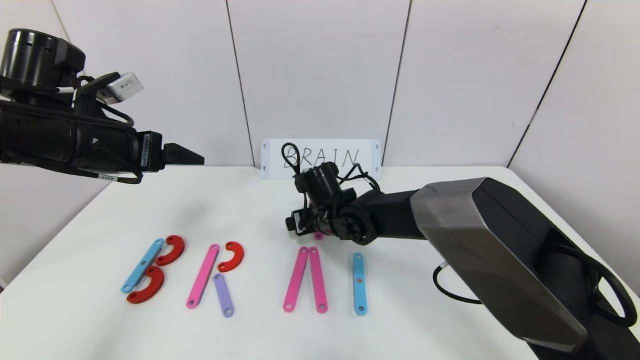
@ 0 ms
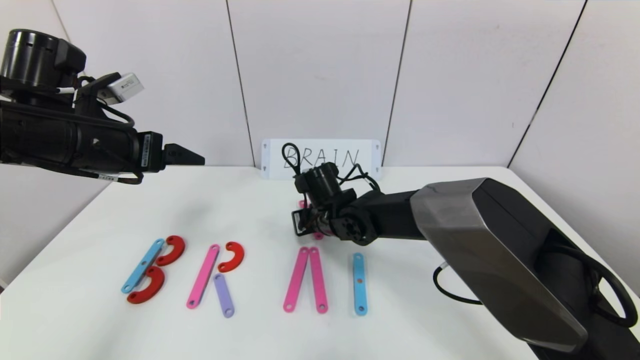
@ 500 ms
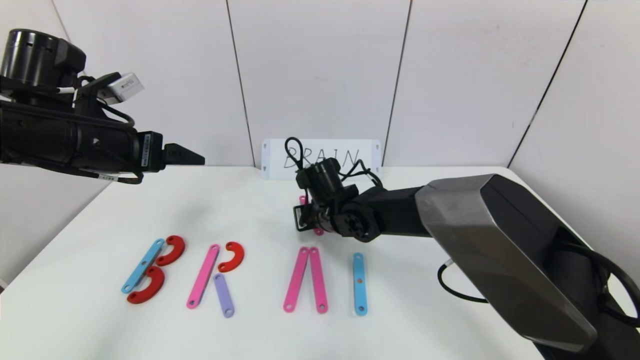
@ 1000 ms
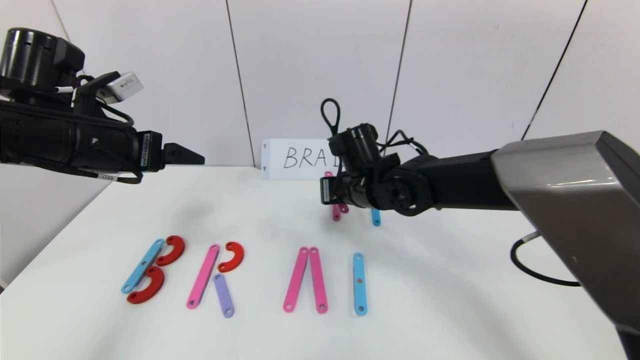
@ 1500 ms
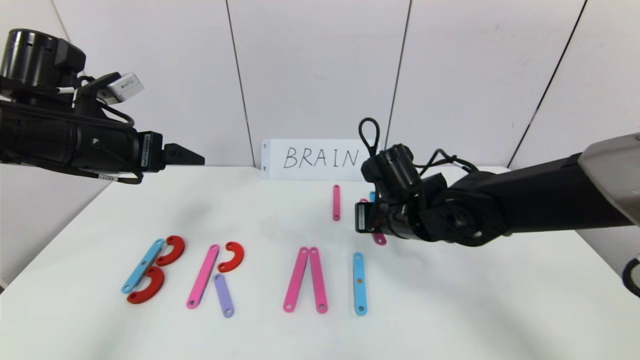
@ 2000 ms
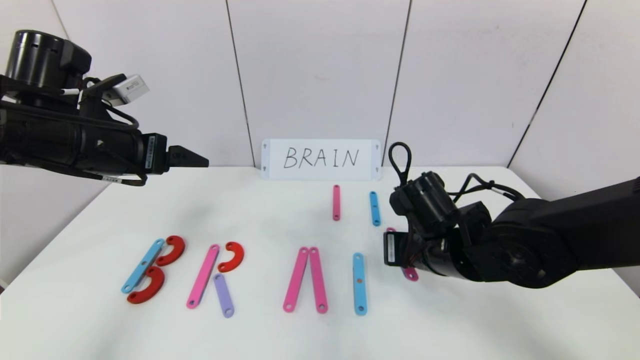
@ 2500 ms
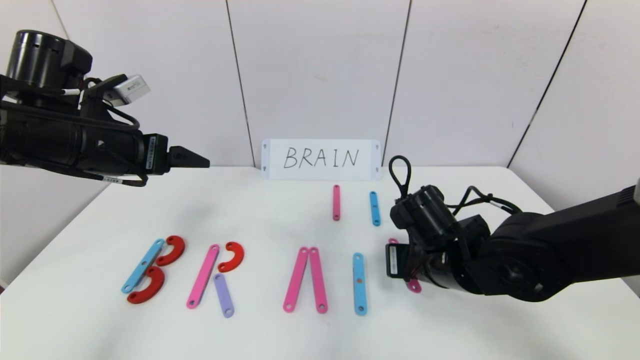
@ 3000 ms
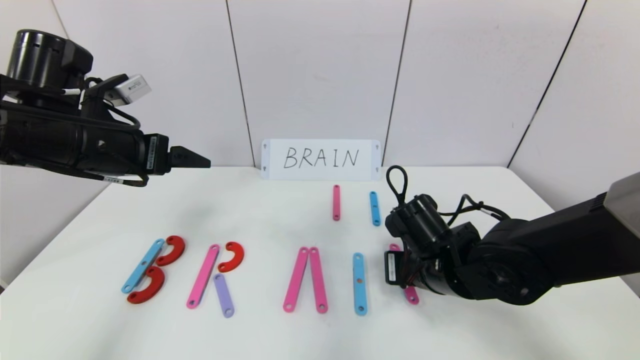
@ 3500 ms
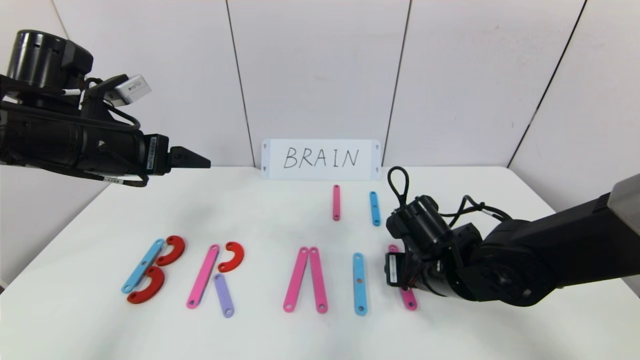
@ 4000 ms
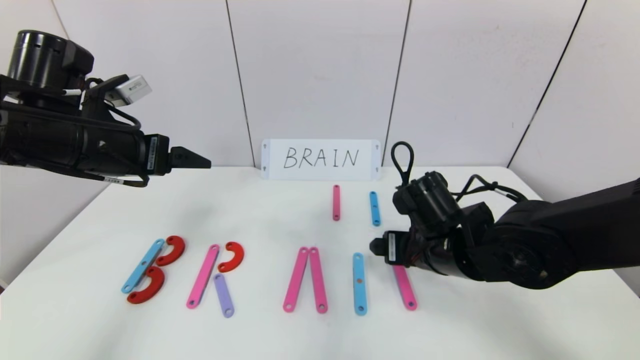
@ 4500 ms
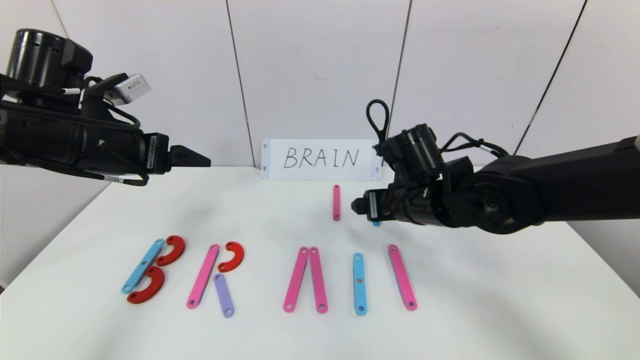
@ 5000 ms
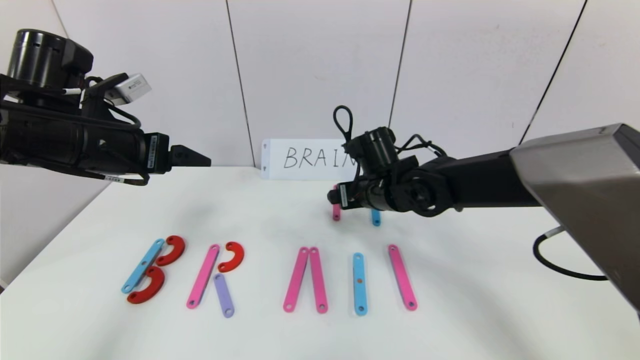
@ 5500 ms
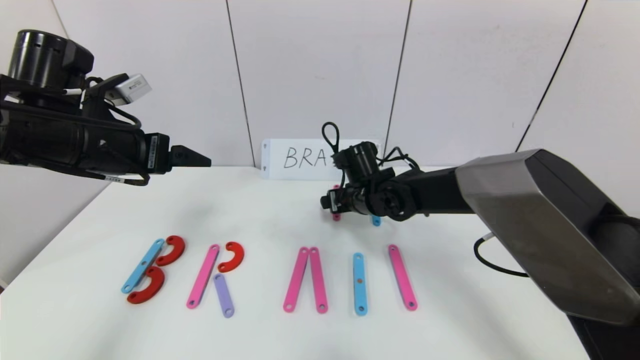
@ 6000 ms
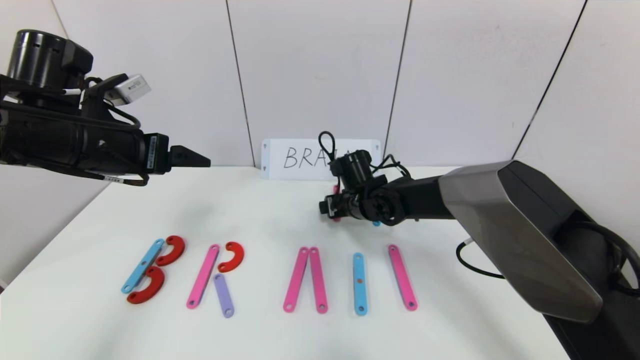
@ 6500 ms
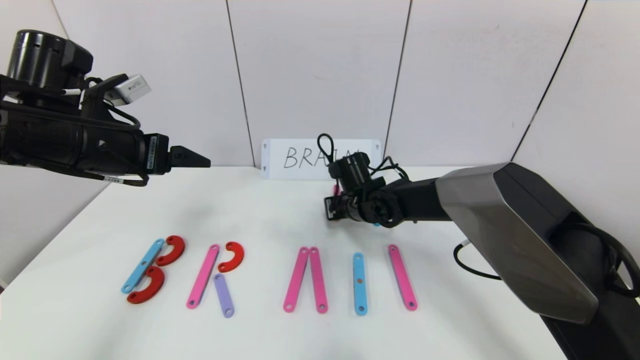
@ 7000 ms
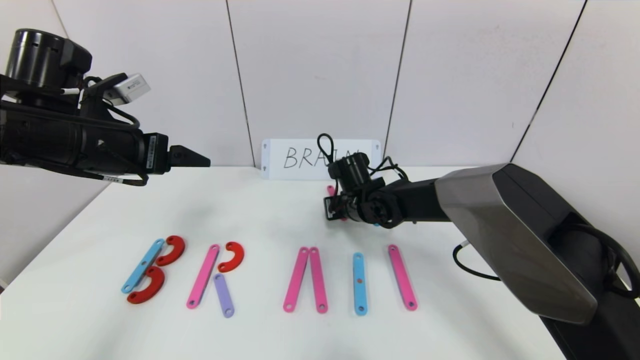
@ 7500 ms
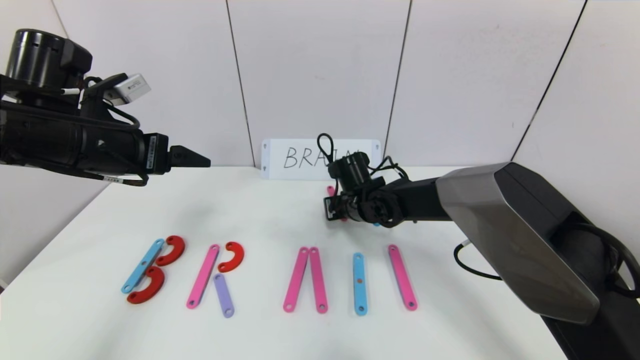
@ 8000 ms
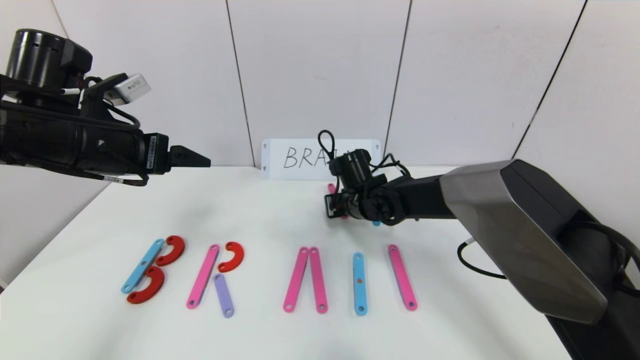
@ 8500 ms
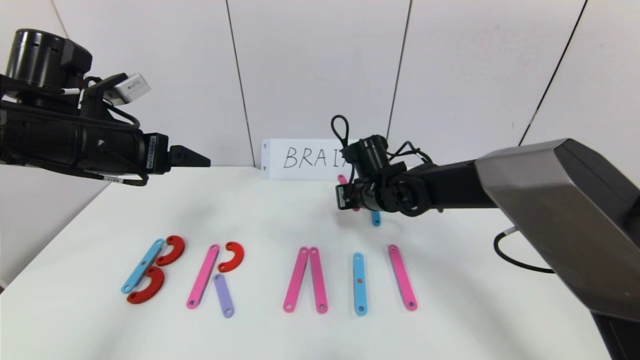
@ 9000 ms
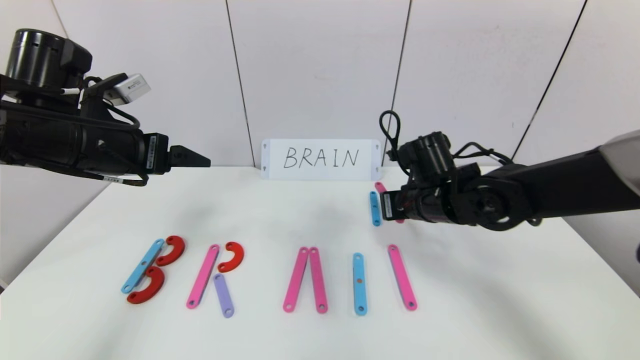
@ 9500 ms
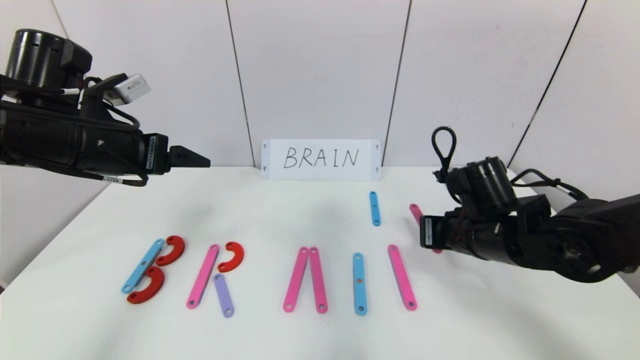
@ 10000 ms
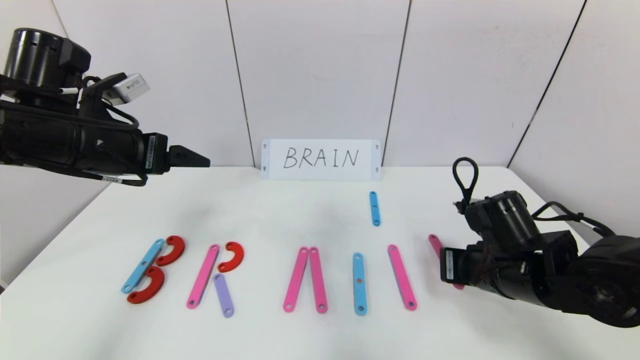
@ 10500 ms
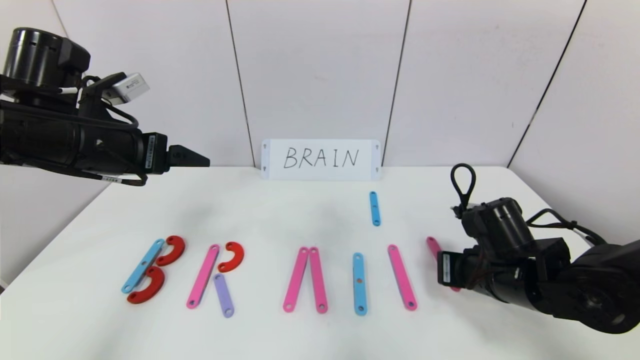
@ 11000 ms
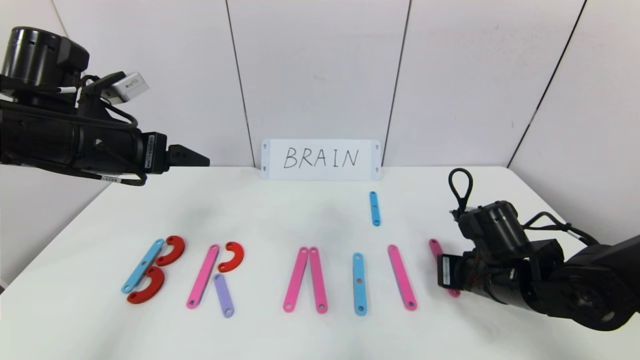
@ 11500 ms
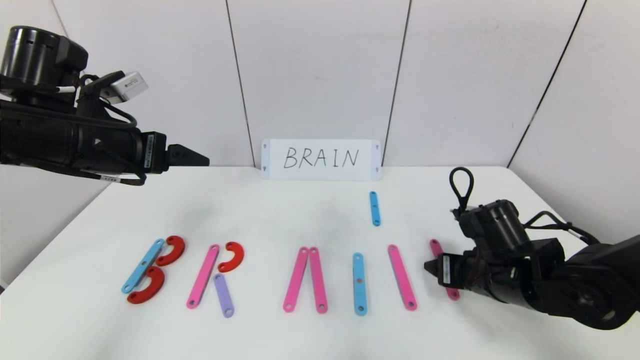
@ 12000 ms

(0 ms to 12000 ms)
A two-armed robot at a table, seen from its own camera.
Task of the whole recording: rearrange the word baai as brain.
0 ms - 2000 ms: The right gripper heads to the right, backward and upward, covering roughly 15 cm, and closes its fingers.
2000 ms - 4000 ms: The right gripper goes approximately 5 cm backward, and opens its fingers.
4000 ms - 6000 ms: The right gripper goes about 15 cm forward and to the left, and opens its fingers.
6000 ms - 8000 ms: The right gripper closes its fingers.
8000 ms - 10000 ms: The right gripper heads to the right and backward, covering approximately 20 cm.
10000 ms - 12000 ms: The right gripper changes place by some 5 cm, and opens up.

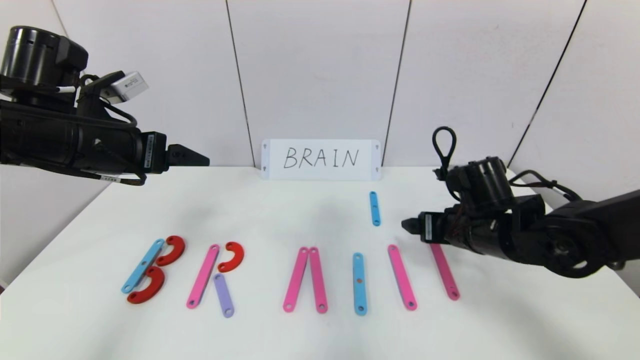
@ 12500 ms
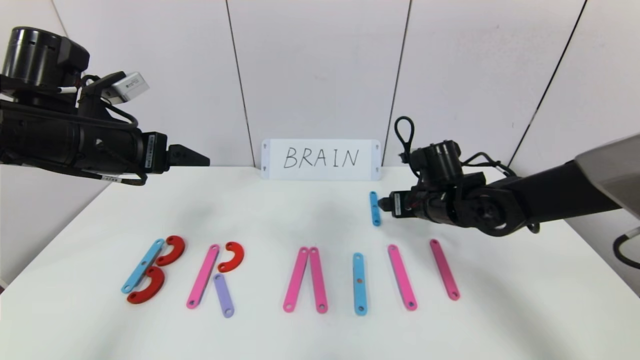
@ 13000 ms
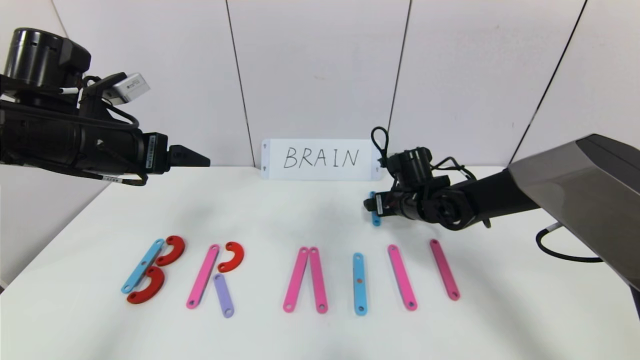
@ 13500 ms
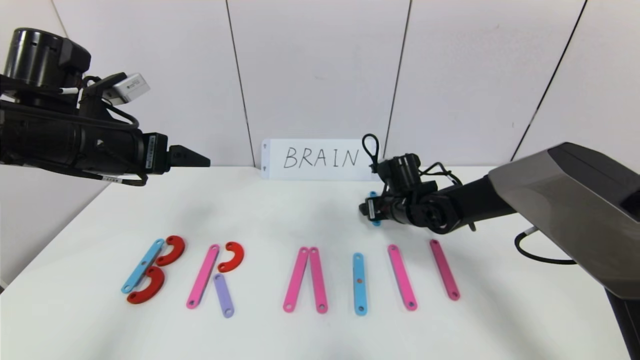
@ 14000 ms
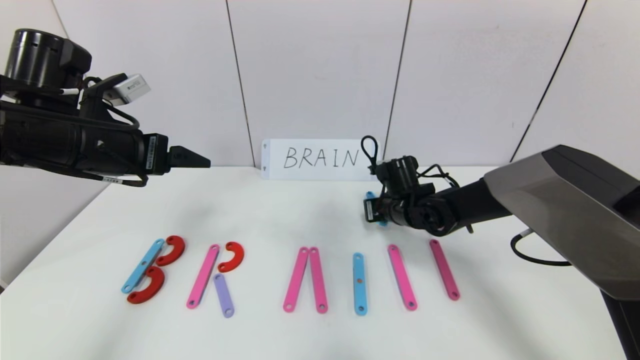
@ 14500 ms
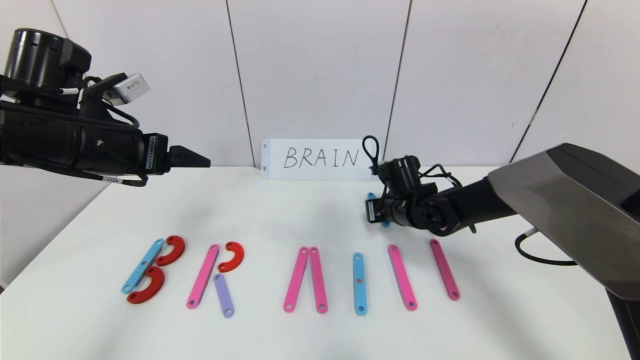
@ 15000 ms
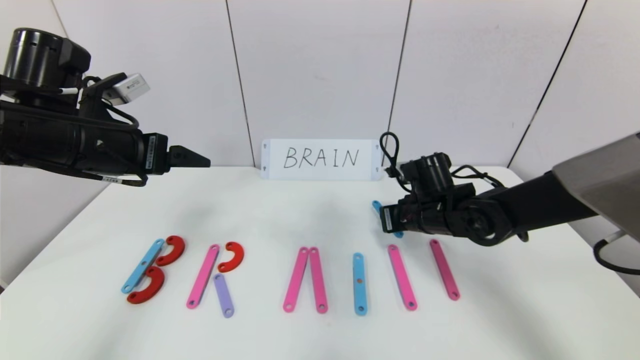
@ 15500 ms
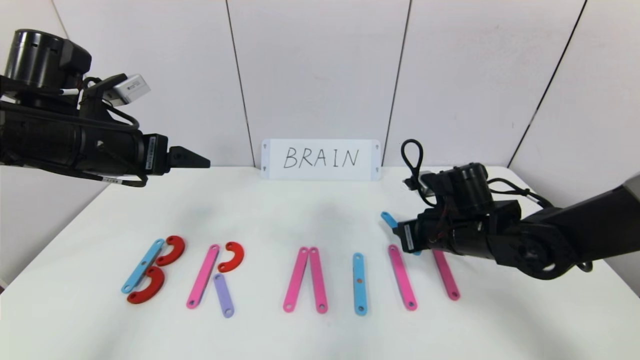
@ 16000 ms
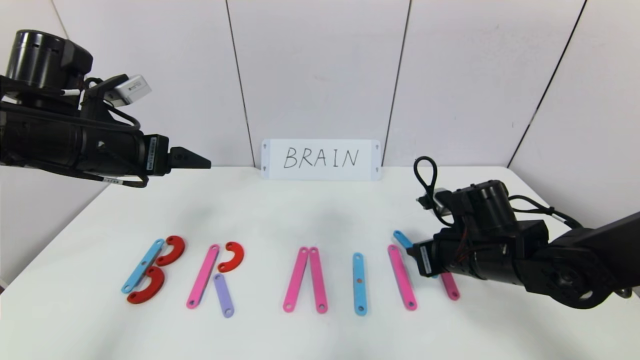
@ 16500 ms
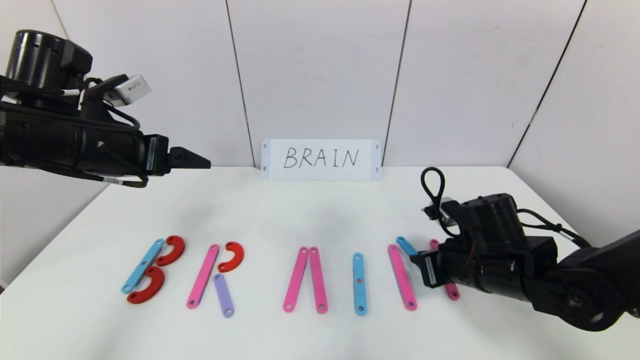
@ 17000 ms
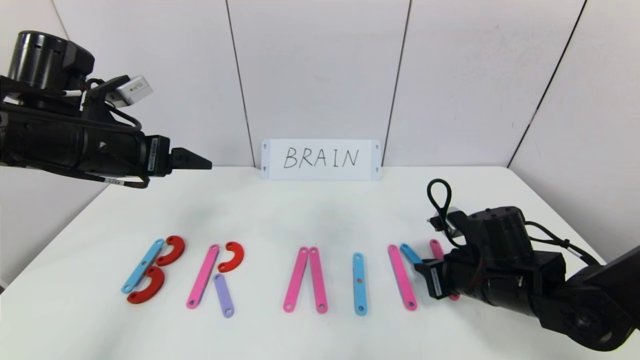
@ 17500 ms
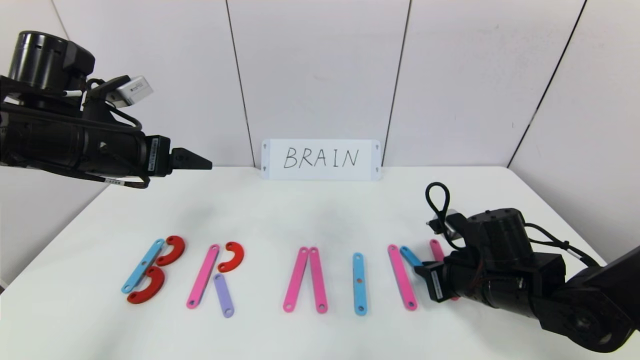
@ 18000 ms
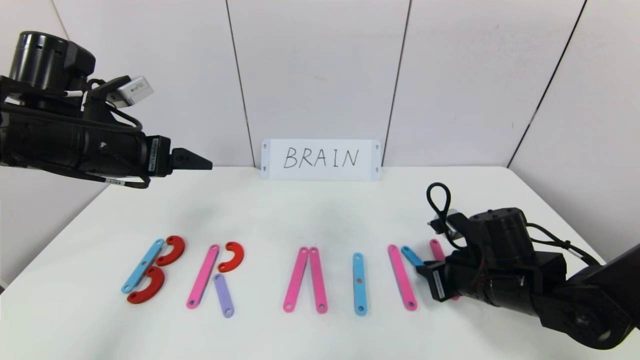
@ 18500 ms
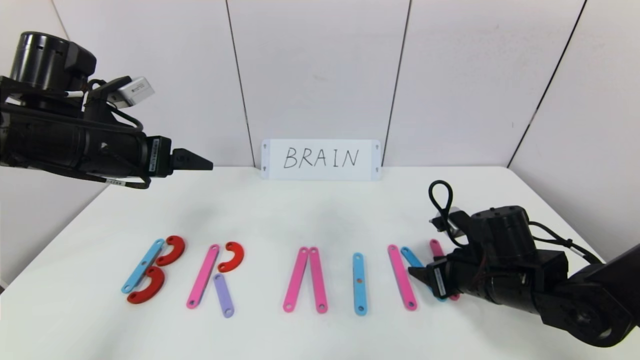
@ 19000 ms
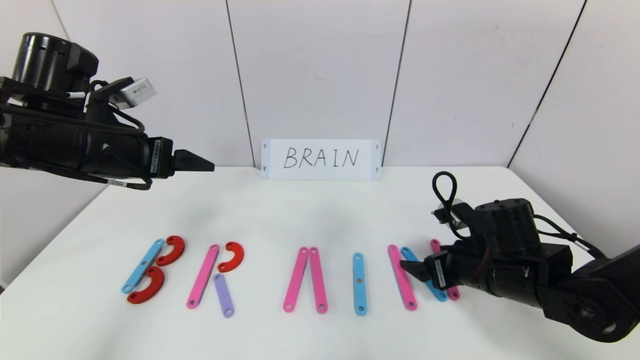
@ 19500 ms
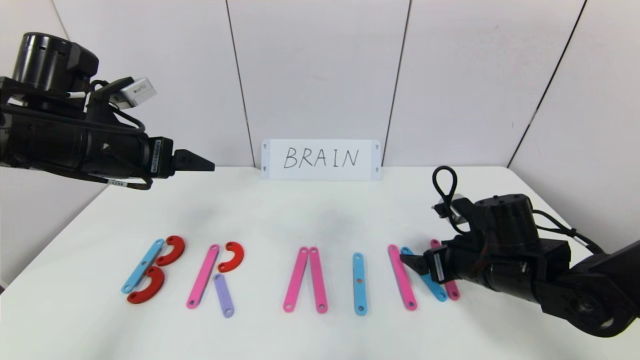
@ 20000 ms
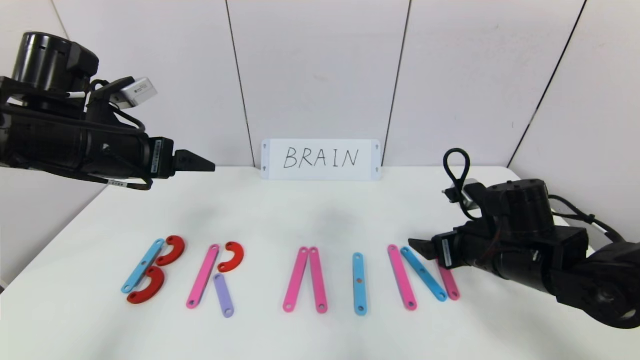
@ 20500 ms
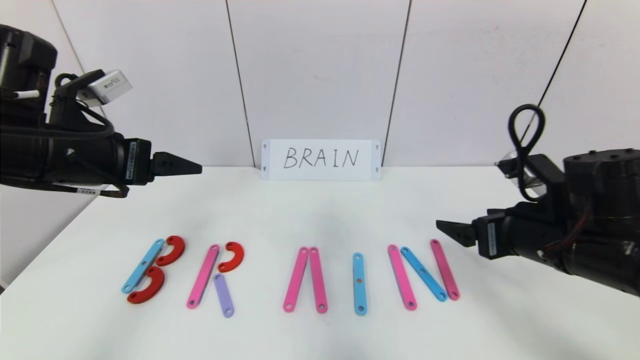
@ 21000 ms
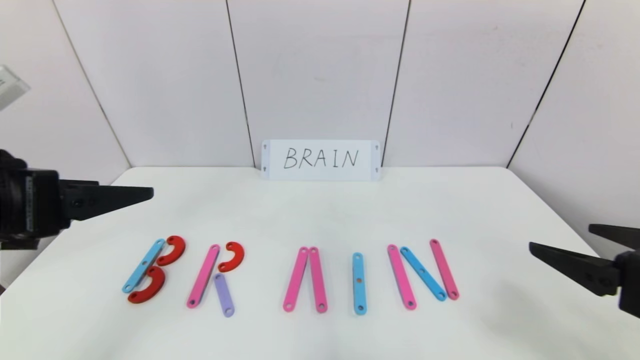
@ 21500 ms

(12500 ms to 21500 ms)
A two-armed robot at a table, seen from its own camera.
Task of the whole recording: rearrange the word baai as brain.
Step, 12500 ms - 19000 ms: Place the character N after character I.
12500 ms - 14500 ms: The right gripper goes some 15 cm forward, to the left and downward, and closes its fingers.
14500 ms - 17000 ms: The right gripper goes approximately 15 cm backward and to the right.
17000 ms - 19500 ms: The right gripper opens.
19500 ms - 21500 ms: The left gripper shifts about 15 cm backward; the right gripper heads backward, upward and to the right, covering approximately 20 cm.
